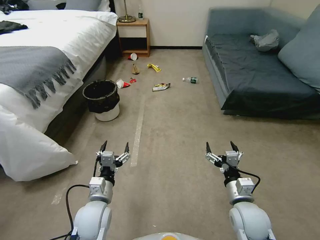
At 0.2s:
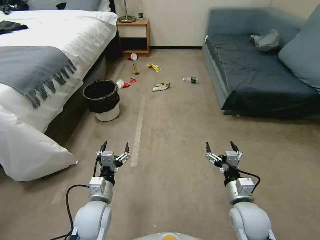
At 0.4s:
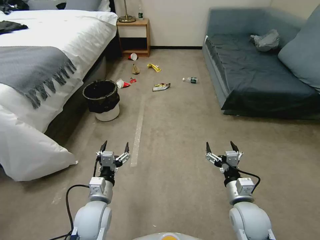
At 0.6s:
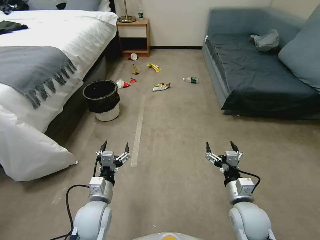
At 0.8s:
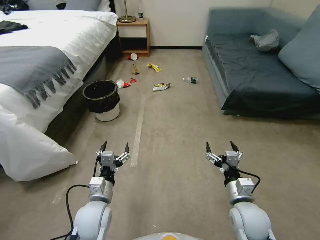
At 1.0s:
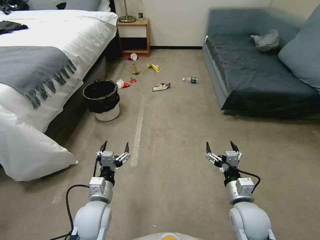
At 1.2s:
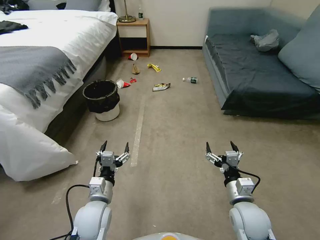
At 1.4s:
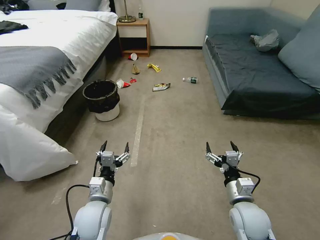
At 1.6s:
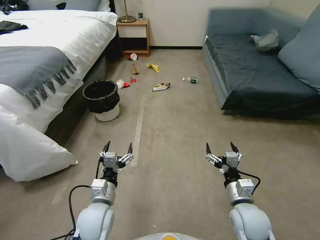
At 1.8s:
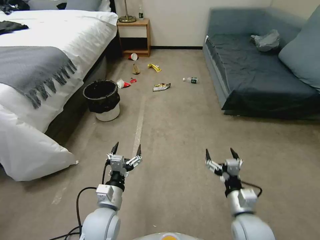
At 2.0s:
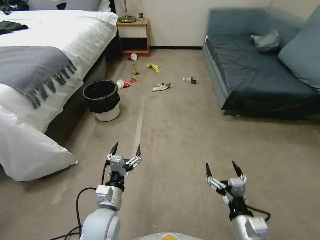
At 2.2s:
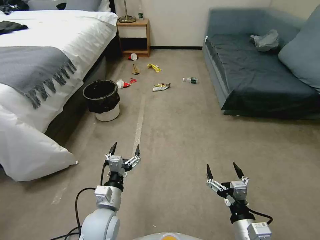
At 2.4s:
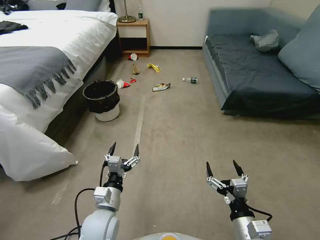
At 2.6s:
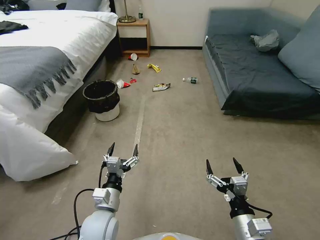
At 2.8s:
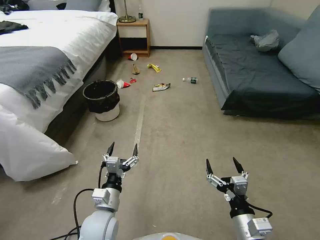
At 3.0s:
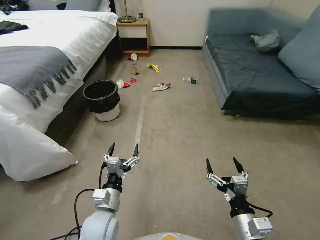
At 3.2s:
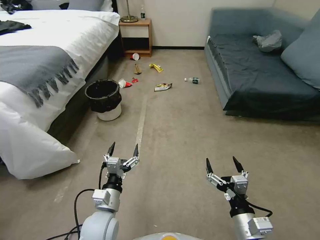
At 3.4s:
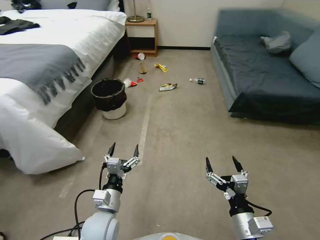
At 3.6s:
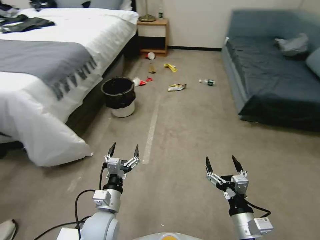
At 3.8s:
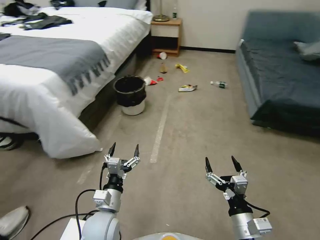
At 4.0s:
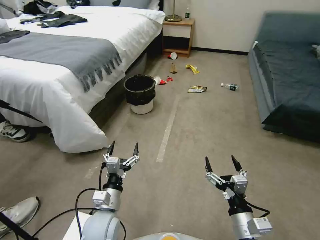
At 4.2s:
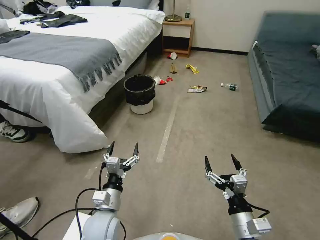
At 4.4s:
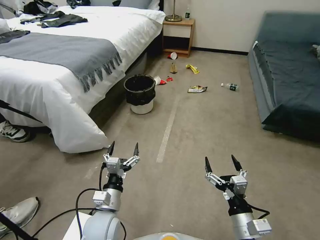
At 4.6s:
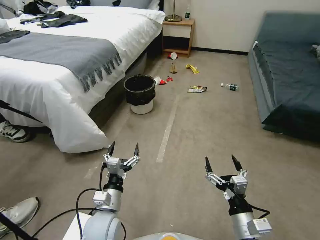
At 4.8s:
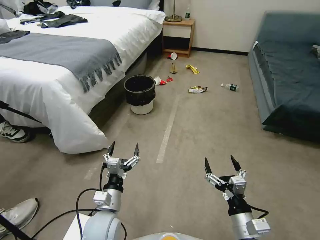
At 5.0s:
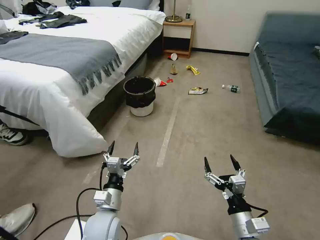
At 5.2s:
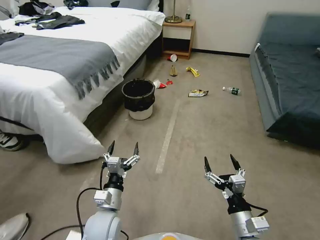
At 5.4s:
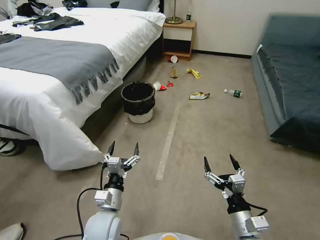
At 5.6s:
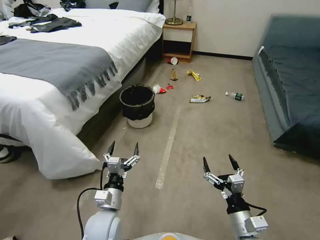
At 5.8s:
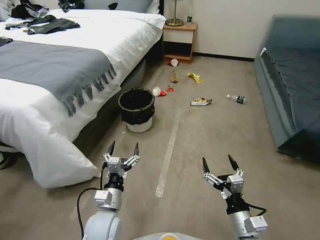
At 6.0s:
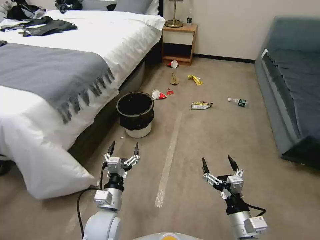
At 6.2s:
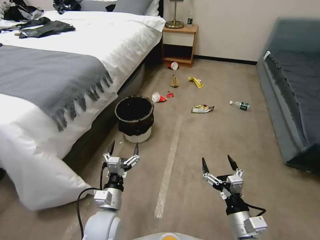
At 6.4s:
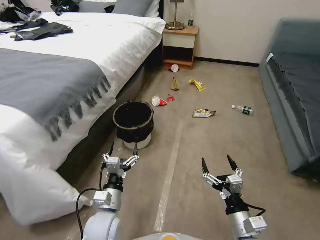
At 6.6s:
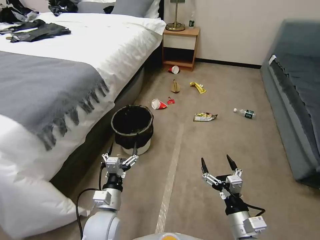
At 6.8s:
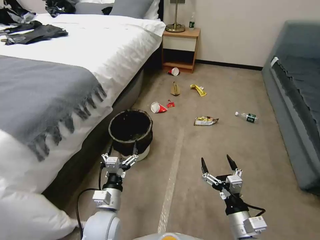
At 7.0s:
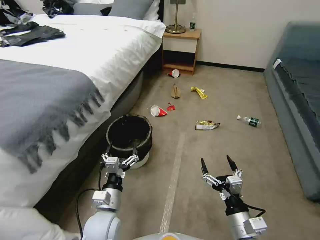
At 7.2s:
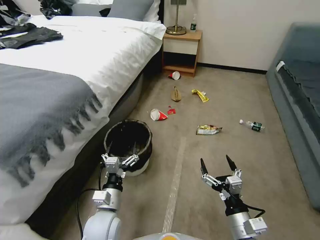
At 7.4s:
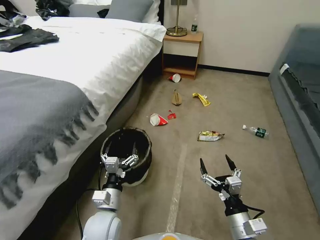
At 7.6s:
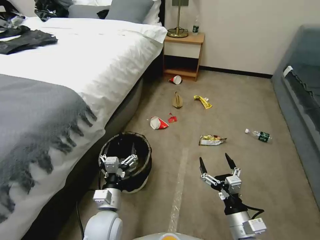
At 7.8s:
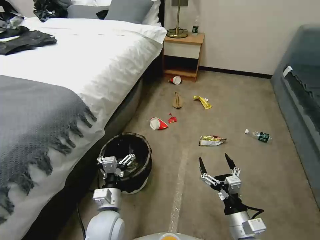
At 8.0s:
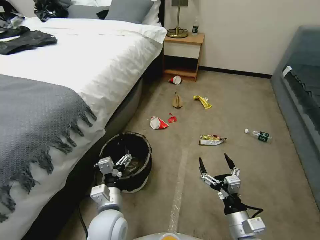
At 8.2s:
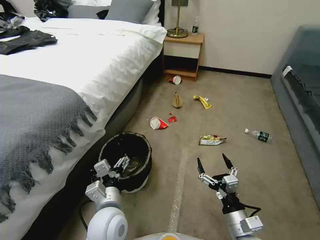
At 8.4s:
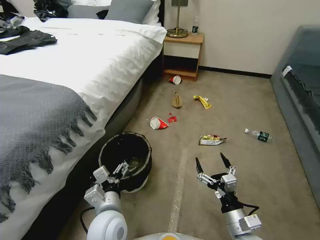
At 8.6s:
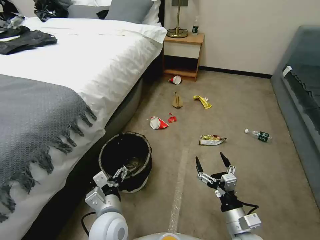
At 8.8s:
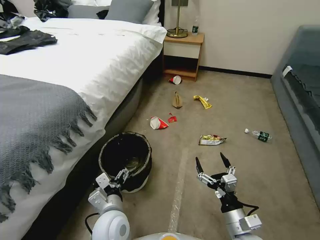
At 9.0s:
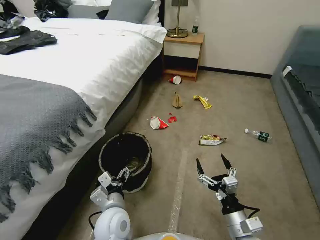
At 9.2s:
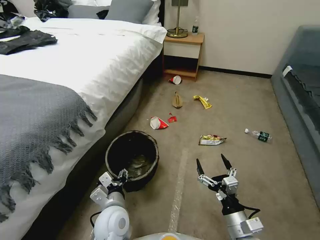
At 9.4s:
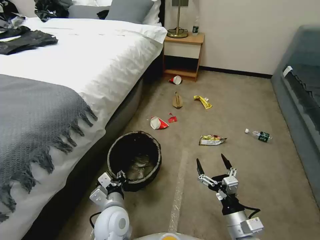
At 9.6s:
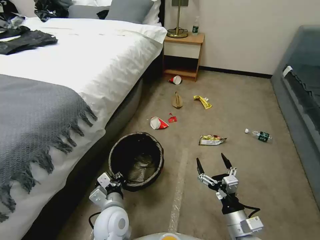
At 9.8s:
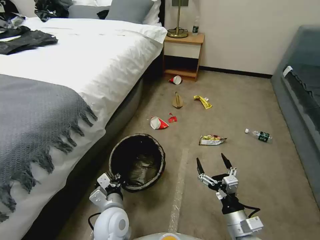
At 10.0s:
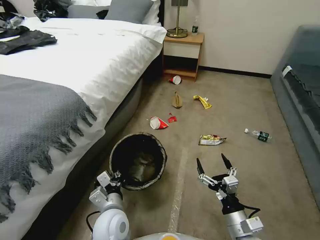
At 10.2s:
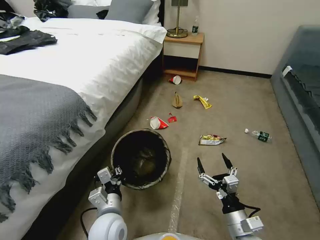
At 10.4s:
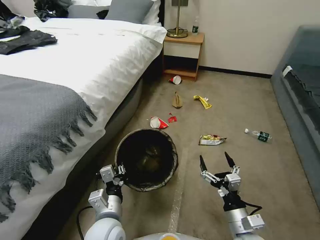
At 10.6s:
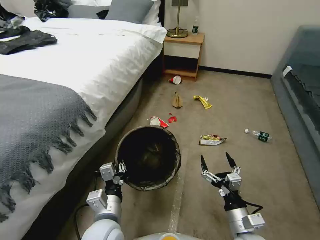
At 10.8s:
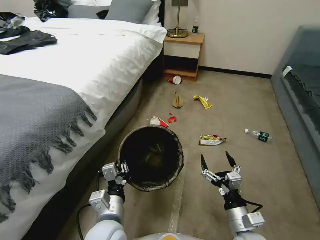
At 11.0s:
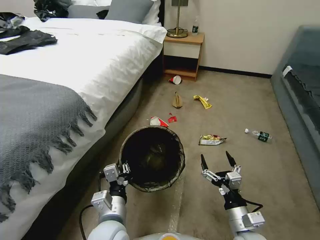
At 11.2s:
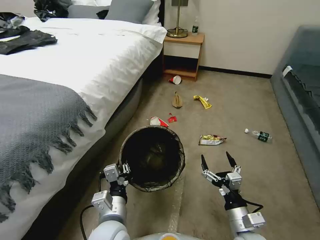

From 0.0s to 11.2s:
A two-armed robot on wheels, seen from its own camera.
Task of the whole recording: Pick up the trash can from the floor.
From 1.6s to 3.2s: The right gripper goes some 10 cm backward.
From 8.0s to 9.6s: The left gripper closes up.
From 9.6s to 11.2s: The left gripper is displaced upward by roughly 5 cm.

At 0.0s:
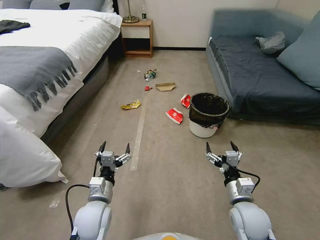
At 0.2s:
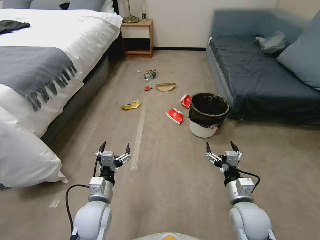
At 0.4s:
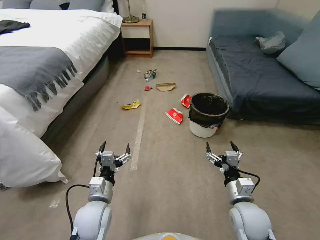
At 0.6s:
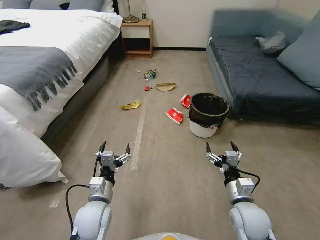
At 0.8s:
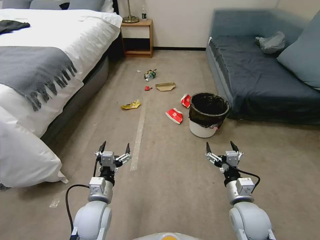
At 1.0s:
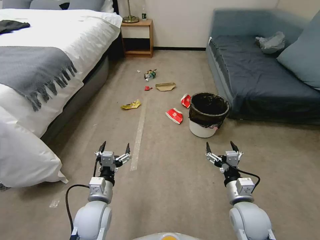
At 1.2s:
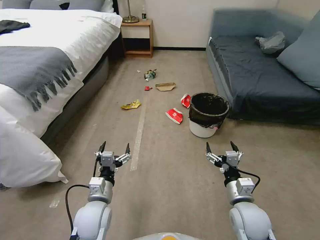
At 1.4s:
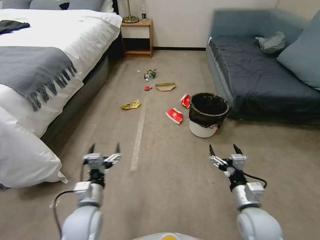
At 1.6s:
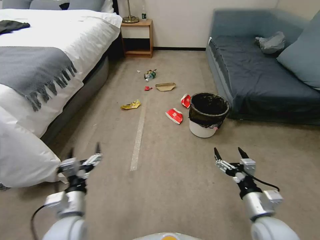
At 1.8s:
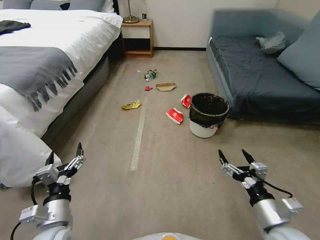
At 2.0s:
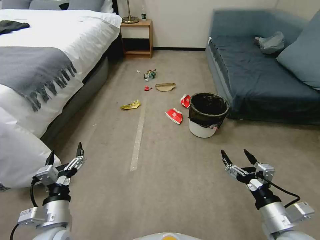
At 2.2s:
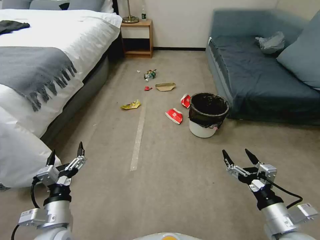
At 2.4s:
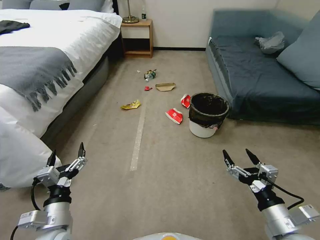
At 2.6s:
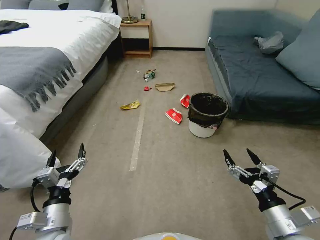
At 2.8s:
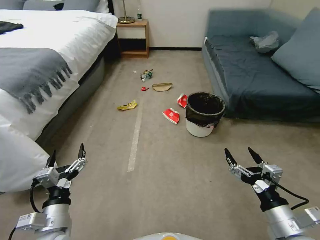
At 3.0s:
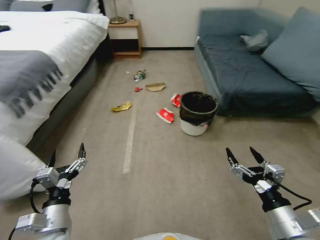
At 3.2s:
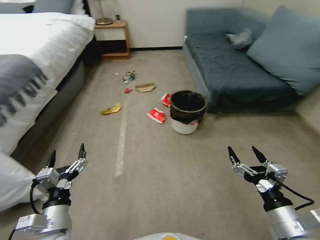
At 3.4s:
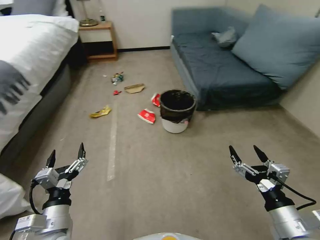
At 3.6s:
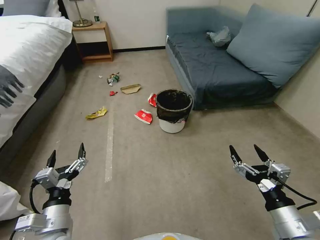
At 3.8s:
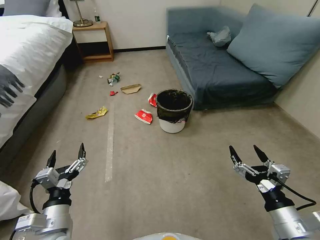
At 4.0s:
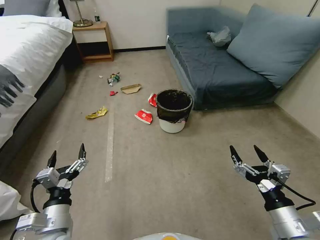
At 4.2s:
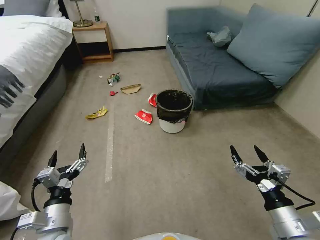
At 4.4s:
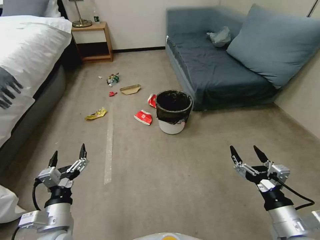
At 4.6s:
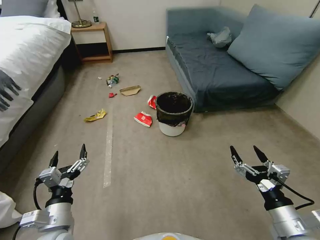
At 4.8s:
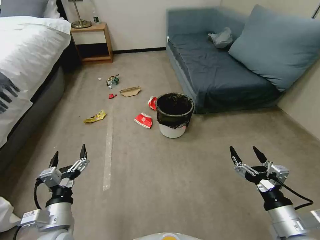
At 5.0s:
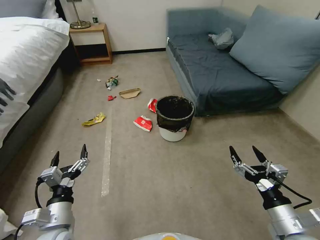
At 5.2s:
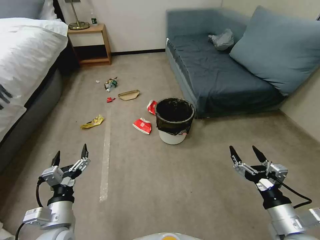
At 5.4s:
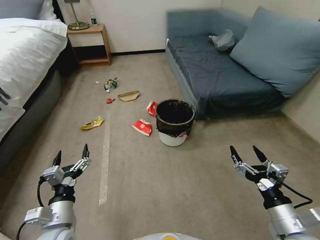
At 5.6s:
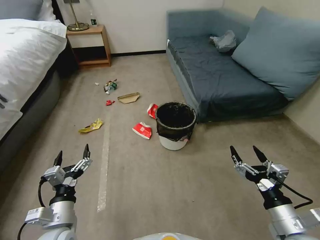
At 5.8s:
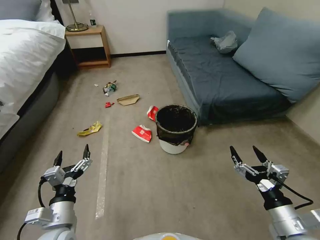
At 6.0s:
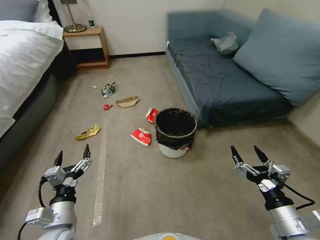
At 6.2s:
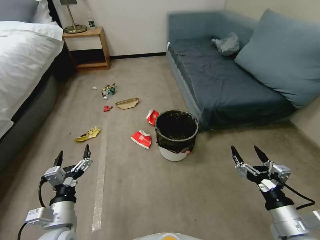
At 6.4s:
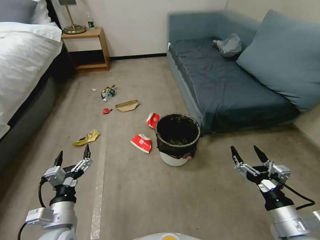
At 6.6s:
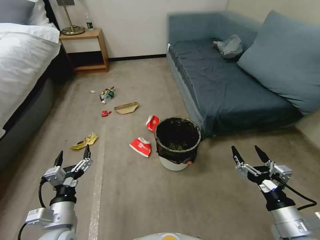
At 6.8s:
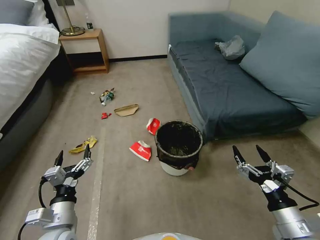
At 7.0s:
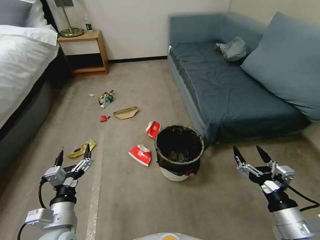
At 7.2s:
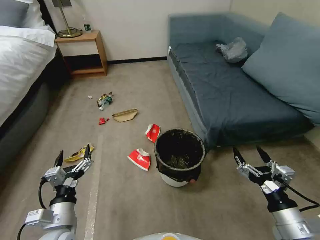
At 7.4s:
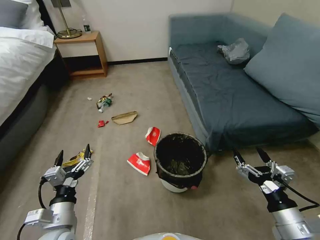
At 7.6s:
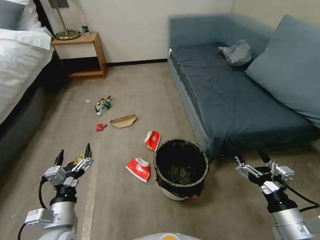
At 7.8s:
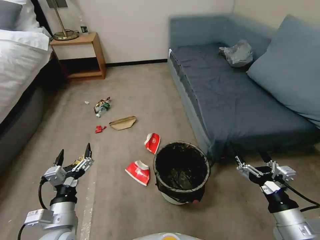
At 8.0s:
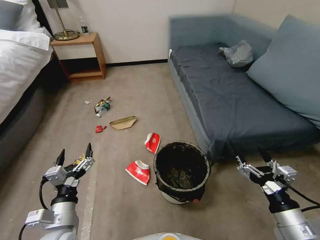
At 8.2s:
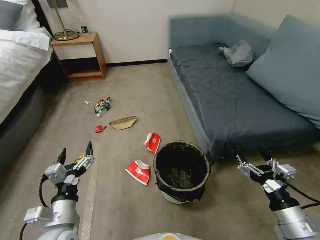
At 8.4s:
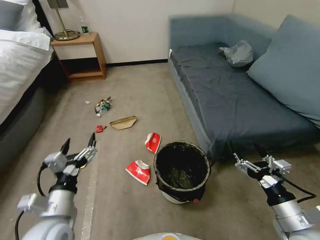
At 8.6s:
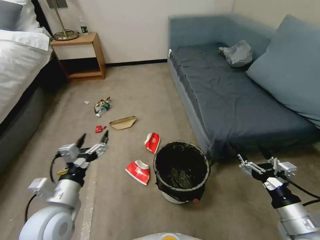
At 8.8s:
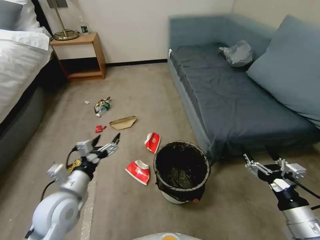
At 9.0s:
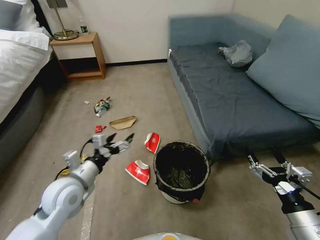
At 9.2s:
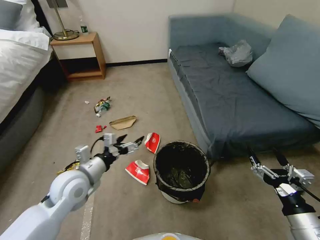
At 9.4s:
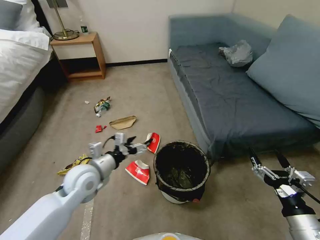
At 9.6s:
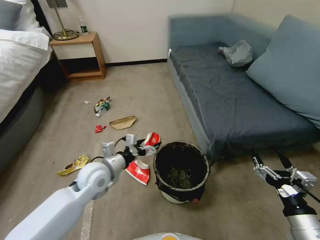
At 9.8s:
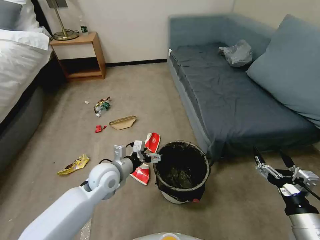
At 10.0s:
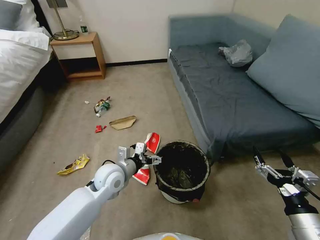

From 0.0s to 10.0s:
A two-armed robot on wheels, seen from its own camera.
Task of the whole recording: Pick up the trash can from the floor.
From 1.4s to 2.8s: The right gripper goes approximately 10 cm backward, upward and to the right; the left gripper heads backward and to the left, covering approximately 10 cm.
From 7.2s to 8.6s: The left gripper travels upward by approximately 5 cm.
From 8.6s to 10.0s: The left gripper travels forward, to the right and downward by roughly 20 cm.

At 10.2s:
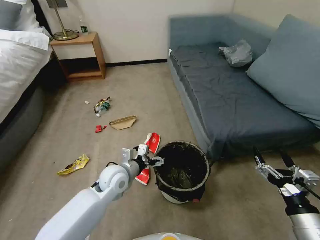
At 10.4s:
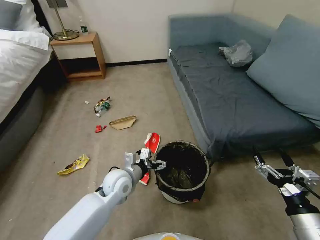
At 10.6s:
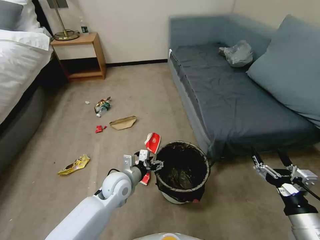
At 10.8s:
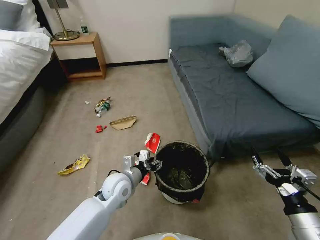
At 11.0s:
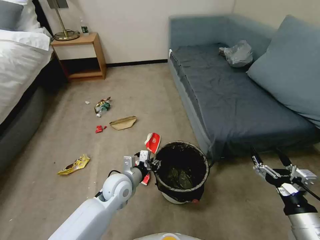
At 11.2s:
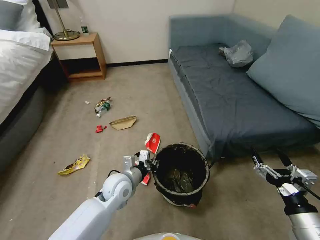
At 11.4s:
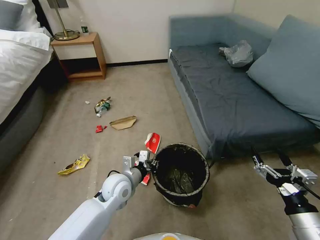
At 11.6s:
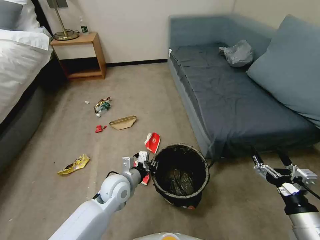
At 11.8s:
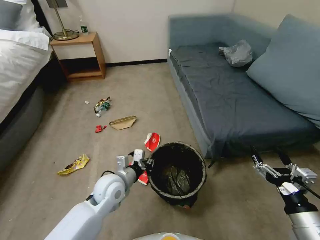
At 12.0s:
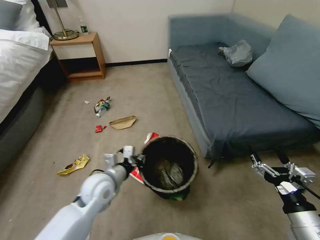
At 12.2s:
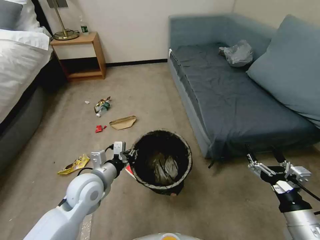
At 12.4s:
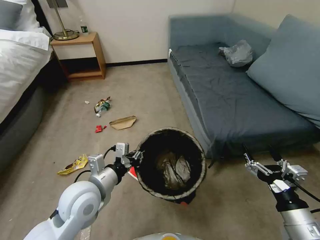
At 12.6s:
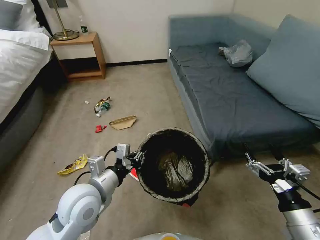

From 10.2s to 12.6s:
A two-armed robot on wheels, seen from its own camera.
Task of the whole recording: Pick up the trash can from the floor.
From 10.2s to 11.4s: The left gripper closes its fingers.
From 11.4s to 12.6s: The left gripper travels upward, backward and to the left by some 15 cm.
